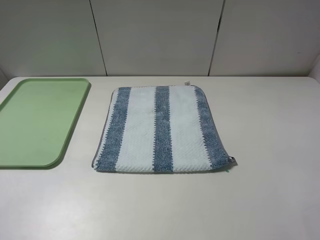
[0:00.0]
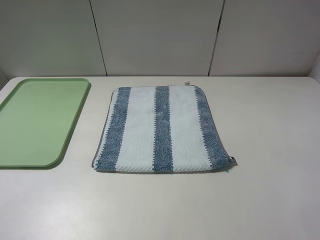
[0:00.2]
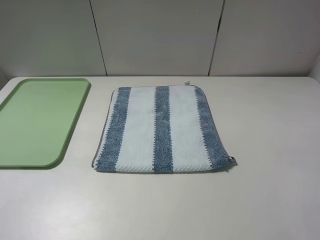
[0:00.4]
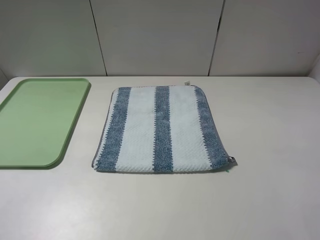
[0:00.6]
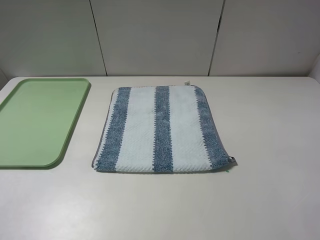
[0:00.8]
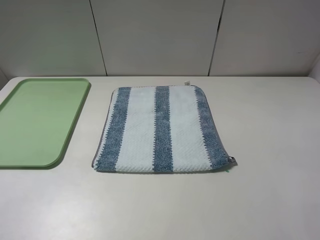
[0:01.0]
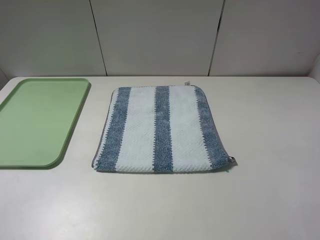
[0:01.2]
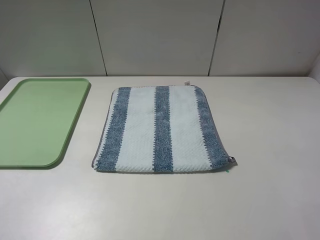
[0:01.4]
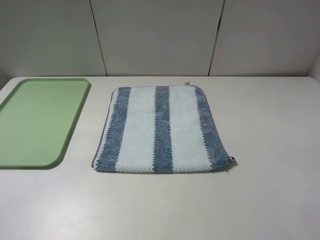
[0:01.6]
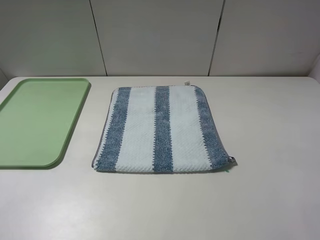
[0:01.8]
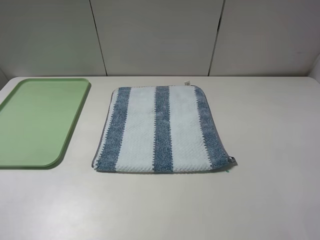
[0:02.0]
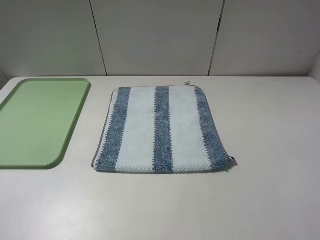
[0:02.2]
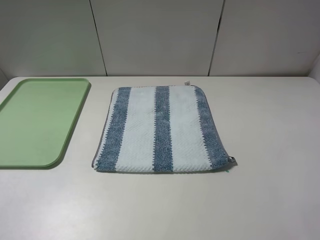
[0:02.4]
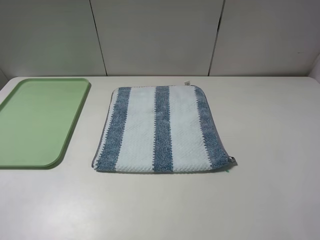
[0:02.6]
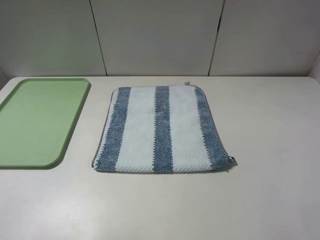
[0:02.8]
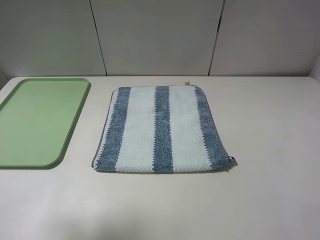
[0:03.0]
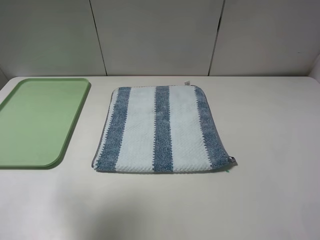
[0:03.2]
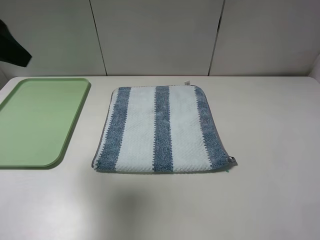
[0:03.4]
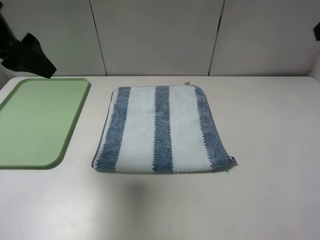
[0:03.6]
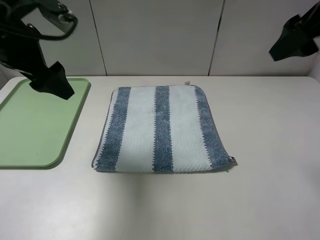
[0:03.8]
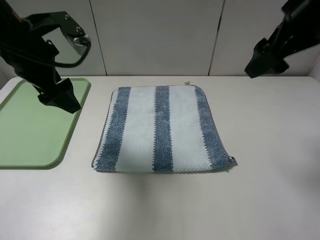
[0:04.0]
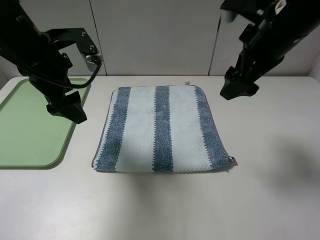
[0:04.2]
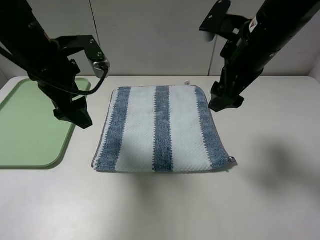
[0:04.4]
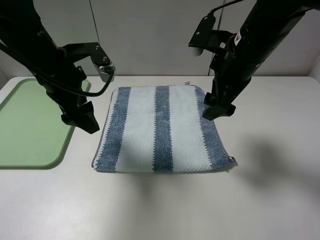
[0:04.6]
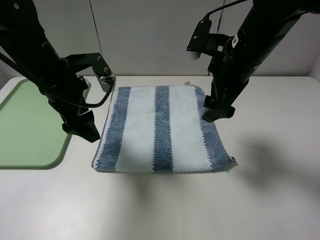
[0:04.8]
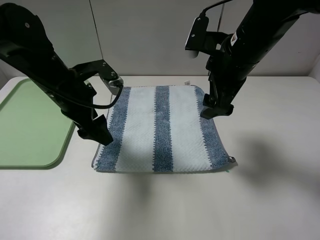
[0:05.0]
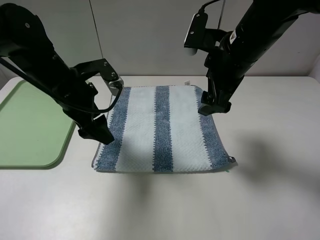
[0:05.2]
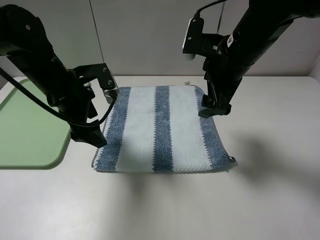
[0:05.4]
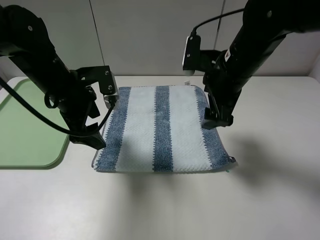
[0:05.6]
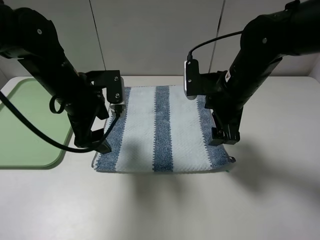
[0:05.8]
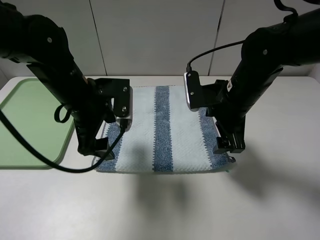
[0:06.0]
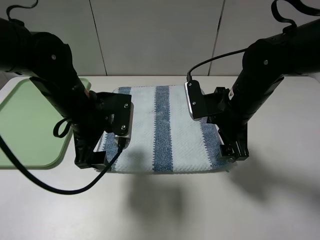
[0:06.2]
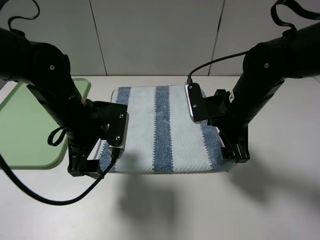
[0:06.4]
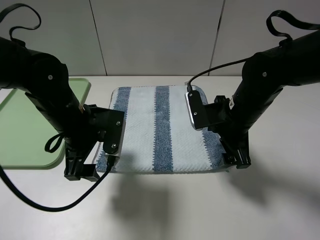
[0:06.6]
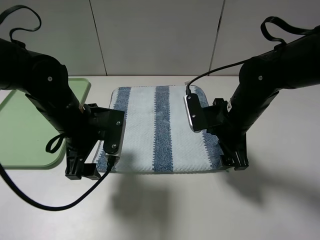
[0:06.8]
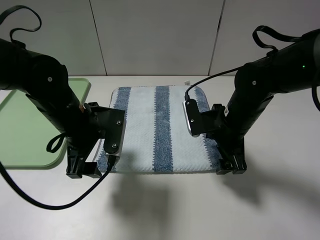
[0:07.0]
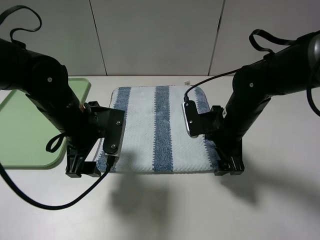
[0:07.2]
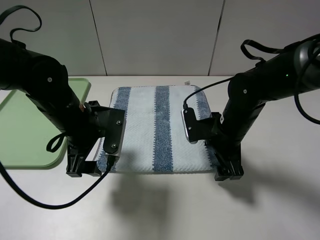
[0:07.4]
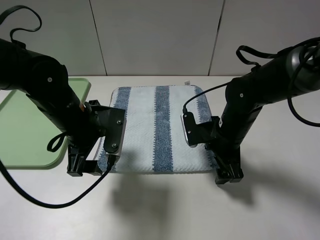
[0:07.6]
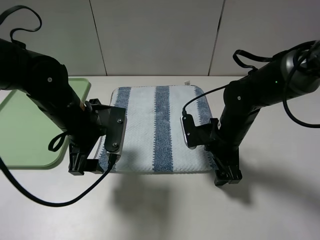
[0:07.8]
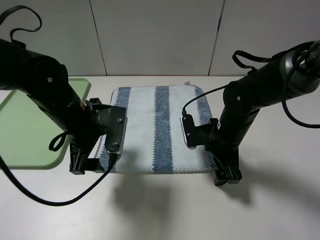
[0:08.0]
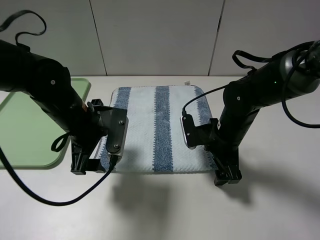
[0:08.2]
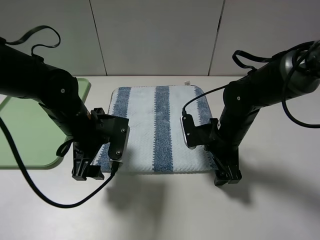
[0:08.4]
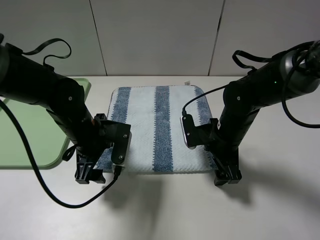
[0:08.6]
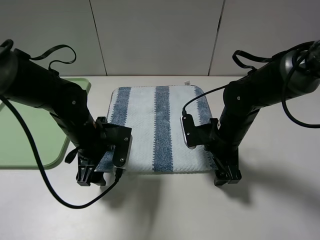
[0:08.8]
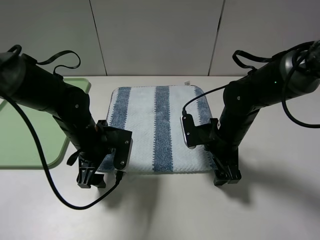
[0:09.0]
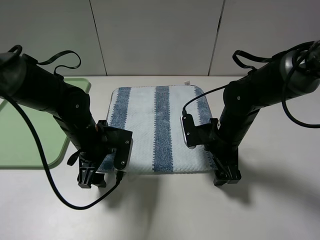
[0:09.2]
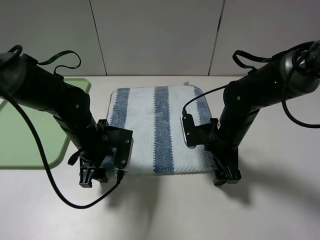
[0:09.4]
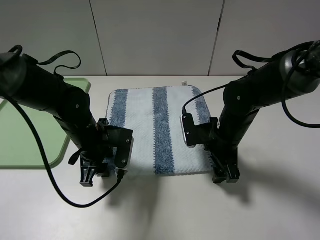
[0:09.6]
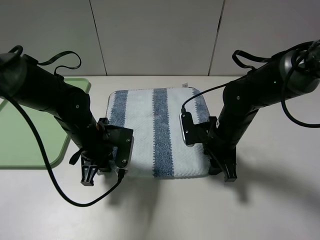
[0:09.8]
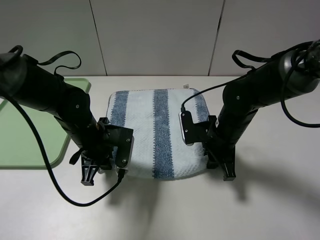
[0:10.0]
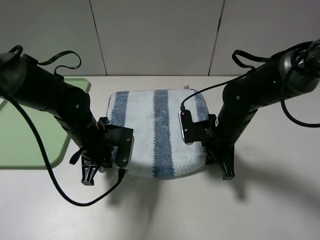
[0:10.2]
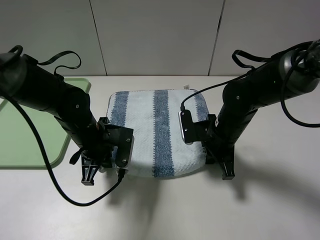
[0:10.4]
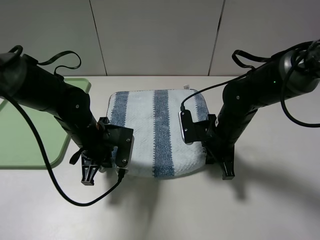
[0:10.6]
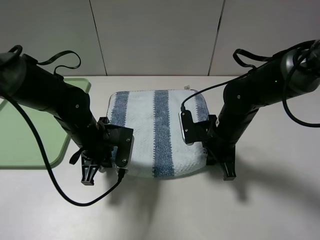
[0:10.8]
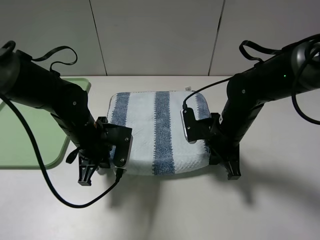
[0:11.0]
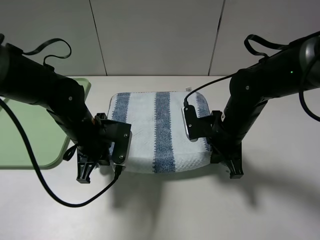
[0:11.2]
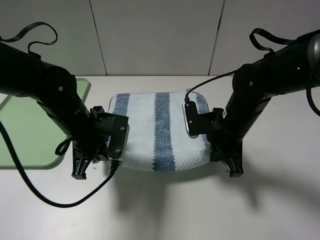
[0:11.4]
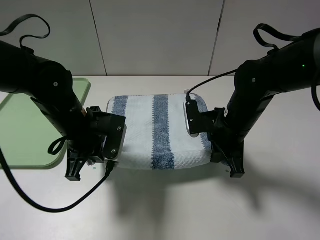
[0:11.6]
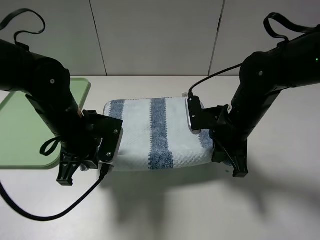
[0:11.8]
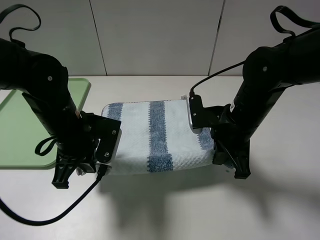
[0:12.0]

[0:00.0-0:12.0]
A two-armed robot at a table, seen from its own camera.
Step, 0:00.0 to 0:10.2: Grasp the blue white towel with the left gripper.
0:00.0 to 0:01.6: Neither gripper changes place.
0:01.6 to 0:03.0: The left gripper moves forward and upward, some 20 cm. The right gripper is displaced upward and forward by some 15 cm.
0:03.0 to 0:04.4: The right gripper shifts roughly 25 cm to the left, forward and downward. The left gripper goes some 25 cm forward, downward and to the right.
0:04.4 to 0:06.0: The left gripper moves downward and to the right, about 10 cm; the right gripper travels downward by about 10 cm.
0:06.0 to 0:07.6: The right gripper goes about 10 cm downward.
0:07.6 to 0:09.0: The left gripper heads downward, covering approximately 5 cm.
0:09.0 to 0:10.4: The right gripper closes its fingers, while the left gripper closes.
0:10.4 to 0:12.0: The two grippers go roughly 5 cm upward.

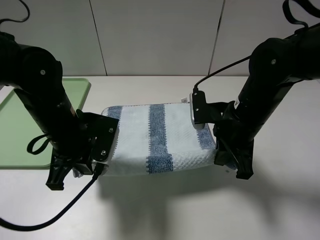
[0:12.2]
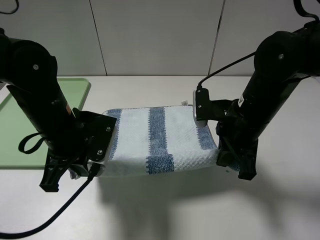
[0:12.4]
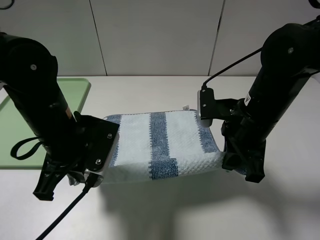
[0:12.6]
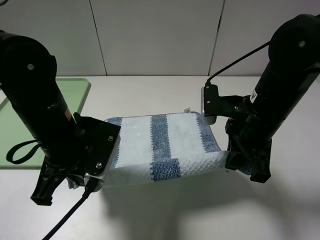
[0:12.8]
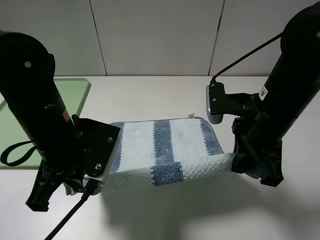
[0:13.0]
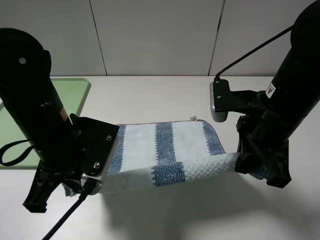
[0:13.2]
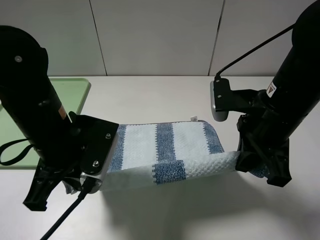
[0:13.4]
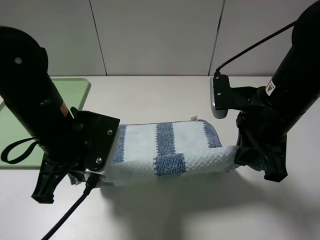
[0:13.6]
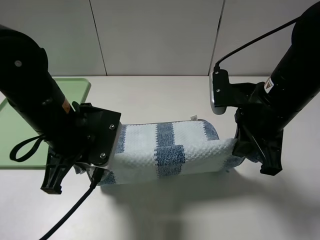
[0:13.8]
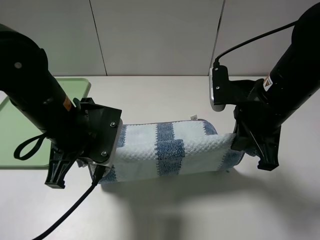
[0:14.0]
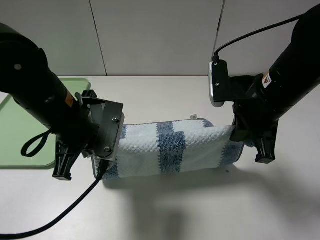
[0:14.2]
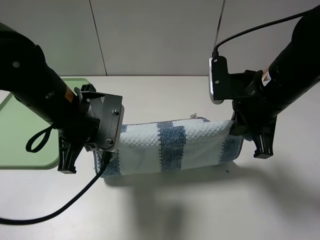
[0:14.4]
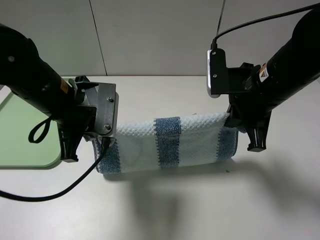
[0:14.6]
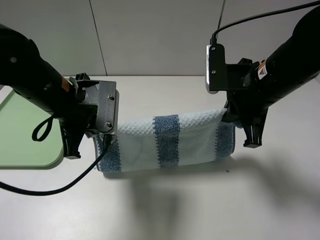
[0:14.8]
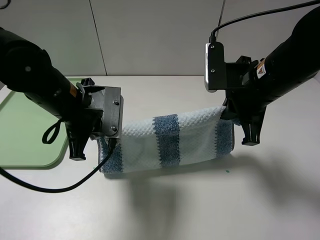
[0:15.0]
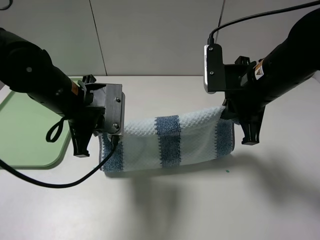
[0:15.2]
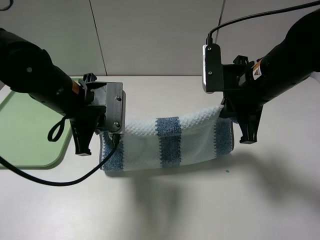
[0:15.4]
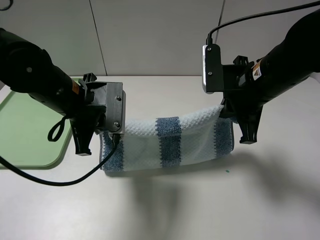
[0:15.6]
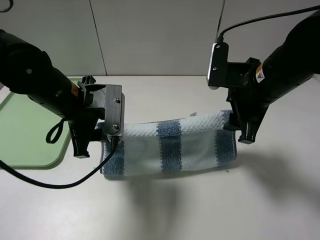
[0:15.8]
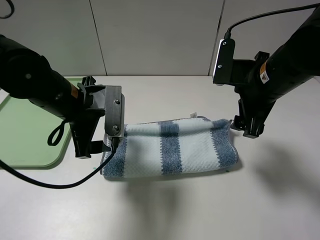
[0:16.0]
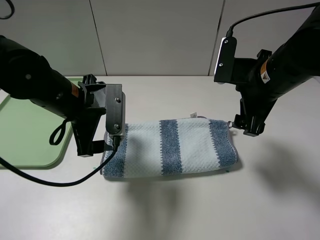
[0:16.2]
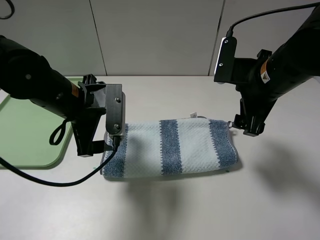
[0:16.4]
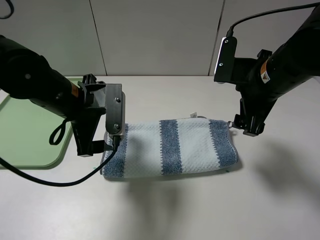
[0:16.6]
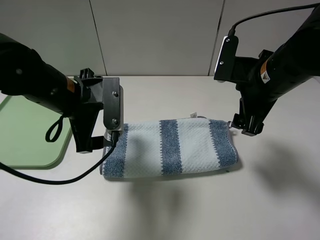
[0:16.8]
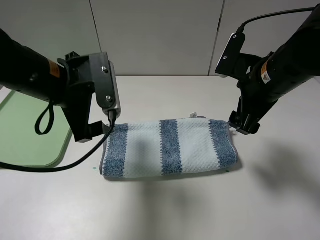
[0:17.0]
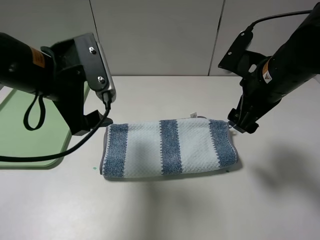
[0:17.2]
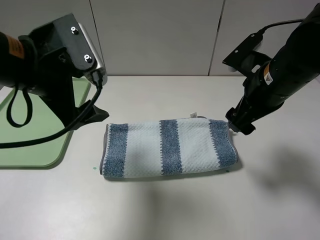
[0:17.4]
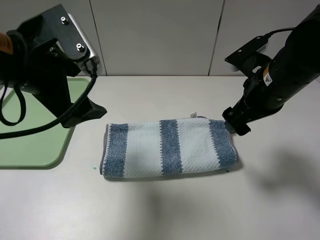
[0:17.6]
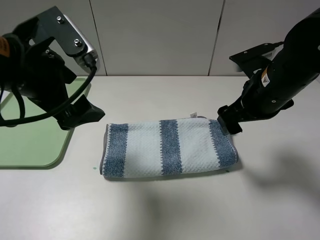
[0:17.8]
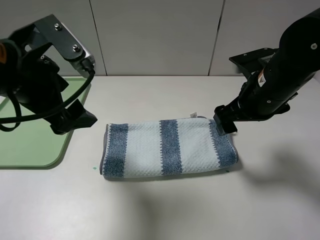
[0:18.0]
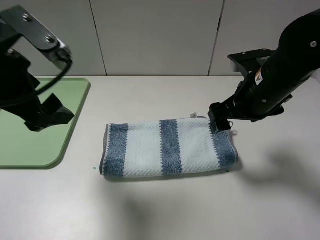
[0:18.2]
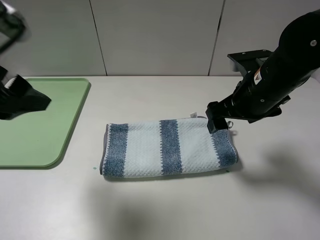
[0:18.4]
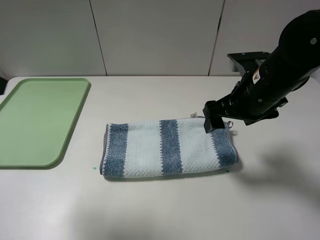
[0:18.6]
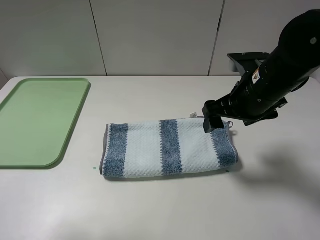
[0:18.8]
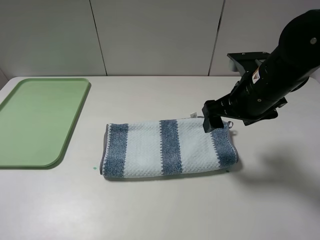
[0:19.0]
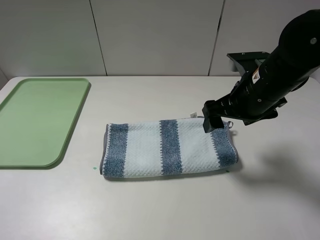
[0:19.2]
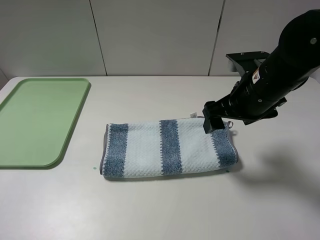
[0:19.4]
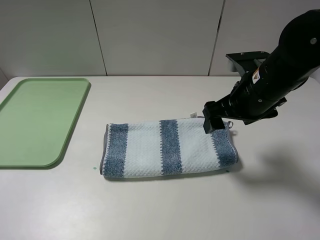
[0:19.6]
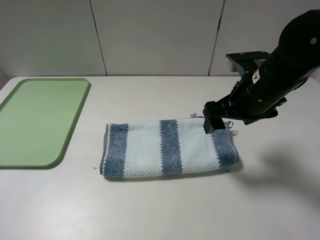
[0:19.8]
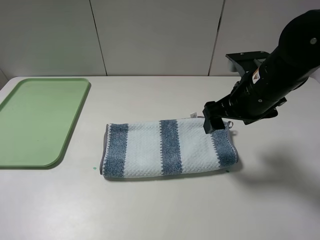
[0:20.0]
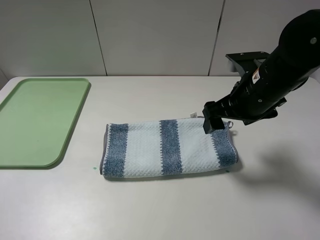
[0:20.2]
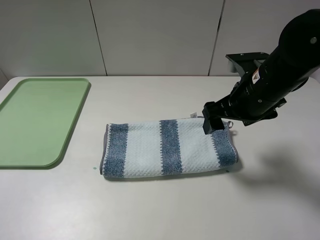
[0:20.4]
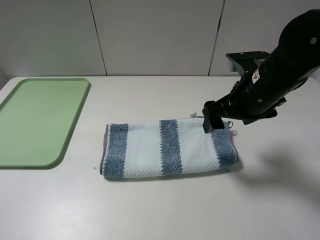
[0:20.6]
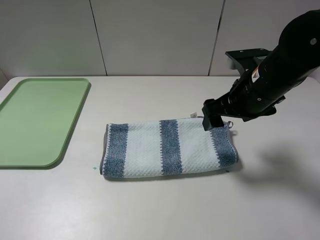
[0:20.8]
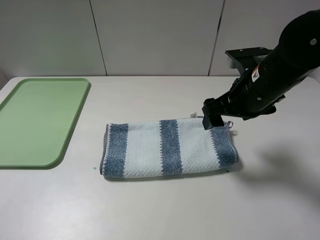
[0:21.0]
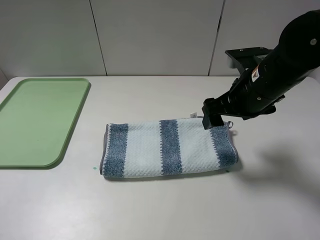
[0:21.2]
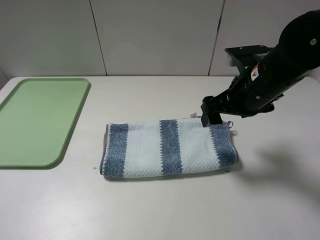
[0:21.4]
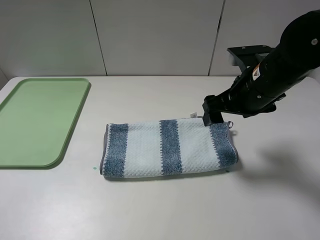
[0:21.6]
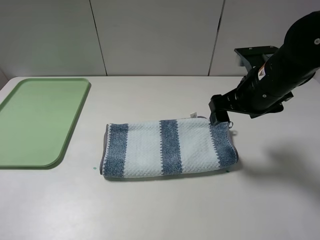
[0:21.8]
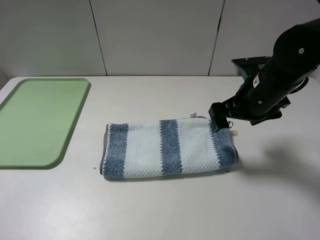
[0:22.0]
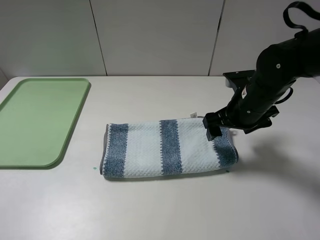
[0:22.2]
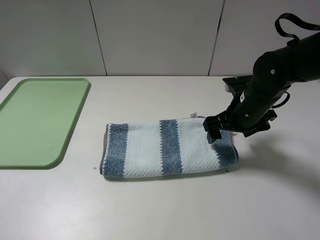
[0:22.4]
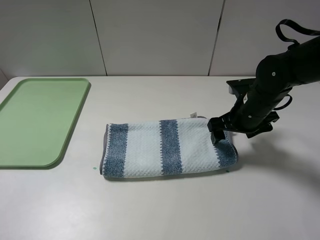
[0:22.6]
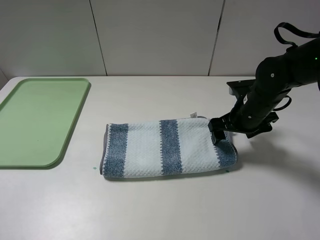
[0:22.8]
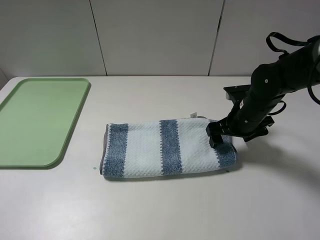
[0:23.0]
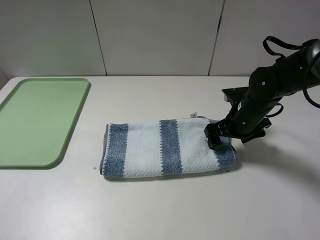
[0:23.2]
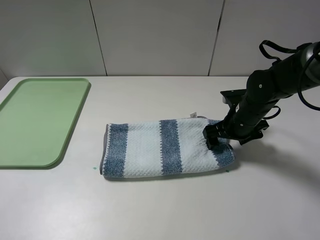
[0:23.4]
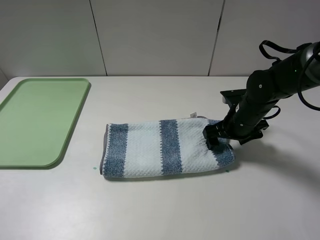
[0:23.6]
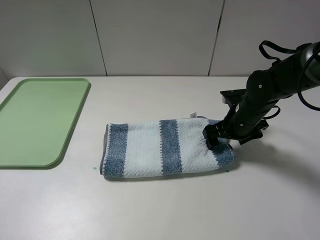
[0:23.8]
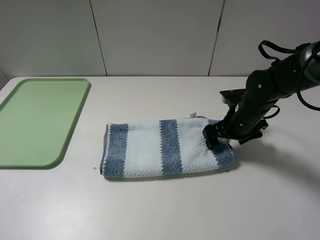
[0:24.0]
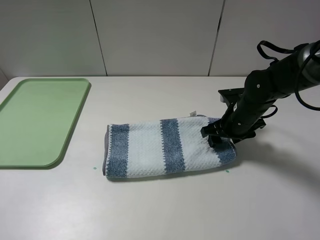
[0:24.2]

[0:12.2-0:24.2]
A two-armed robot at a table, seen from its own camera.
Step, 0:12.2 to 0:16.0: Fold the blue white towel upwards with the left gripper.
0:12.2 to 0:13.8: The right gripper travels upward by about 5 cm.
0:13.8 to 0:15.2: The left gripper ends up roughly 5 cm from where it was.
0:15.2 to 0:16.6: The right gripper opens up, while the left gripper opens its fingers.
0:16.6 to 0:18.2: The left gripper moves upward, to the left and backward, approximately 15 cm.
0:18.2 to 0:19.8: The left gripper travels backward and to the left by approximately 20 cm.
0:19.8 to 0:21.2: The grippers move only a little.
0:21.2 to 0:22.6: The right gripper travels downward by about 10 cm.
0:22.6 to 0:24.2: The right gripper closes its fingers.
